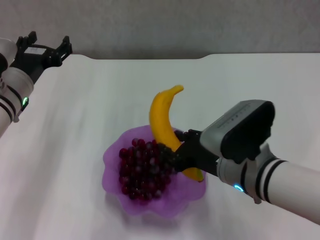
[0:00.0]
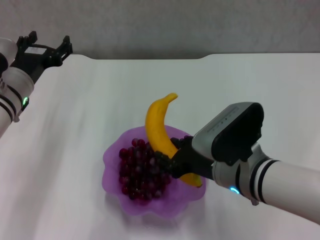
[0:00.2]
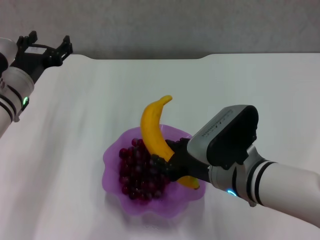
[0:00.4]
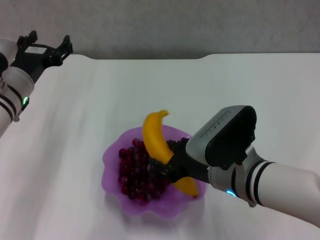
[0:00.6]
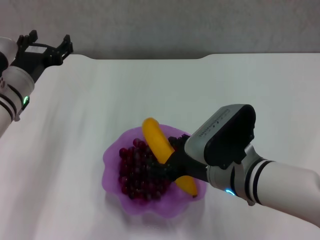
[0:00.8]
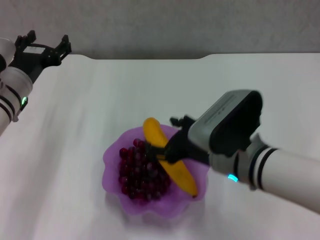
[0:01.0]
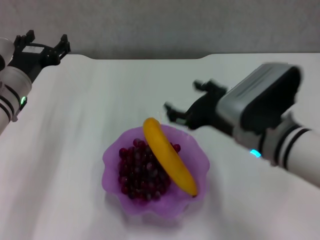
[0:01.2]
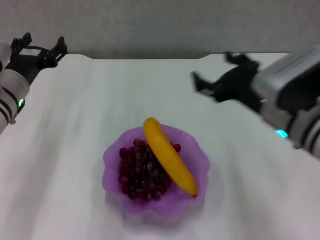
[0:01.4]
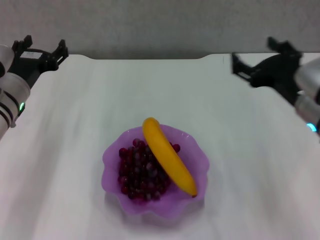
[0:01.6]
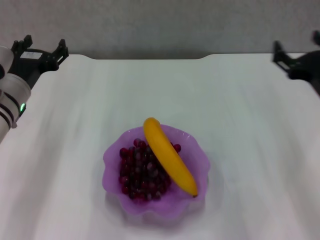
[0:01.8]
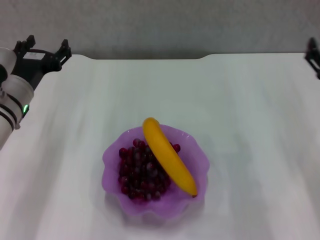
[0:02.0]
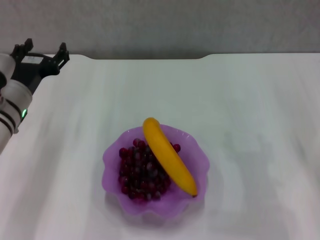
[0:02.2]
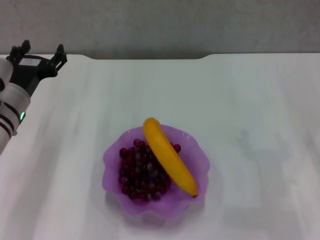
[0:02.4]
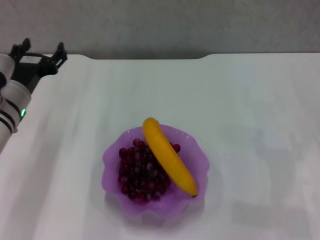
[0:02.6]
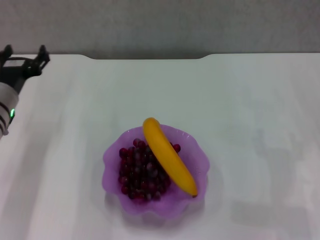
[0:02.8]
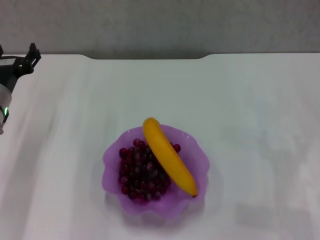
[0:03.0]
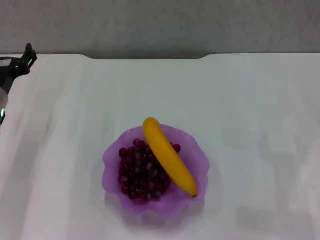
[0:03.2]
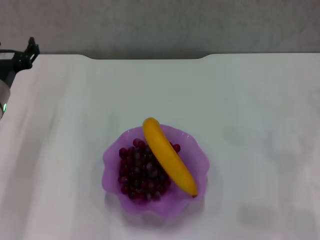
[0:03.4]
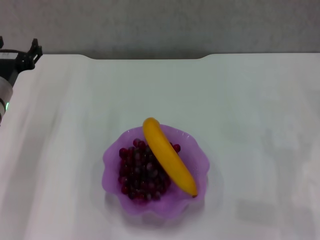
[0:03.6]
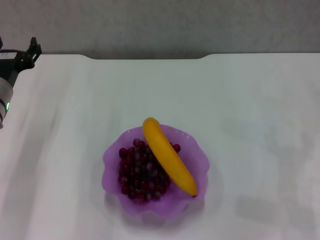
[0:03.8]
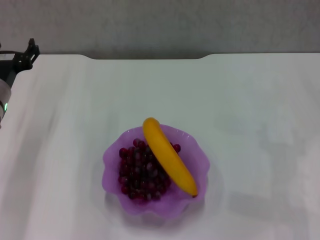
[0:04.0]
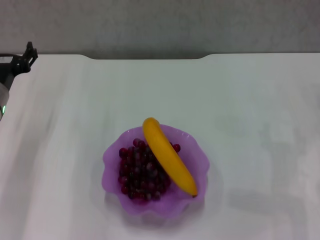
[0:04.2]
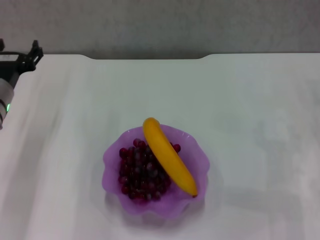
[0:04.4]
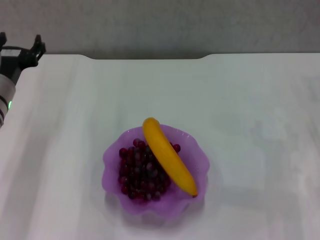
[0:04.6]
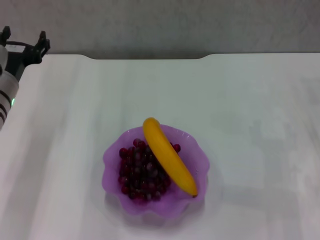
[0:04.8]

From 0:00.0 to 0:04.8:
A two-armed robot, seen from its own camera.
From 0:00.0 to 0:01.6: The right gripper goes about 10 cm to the right and upward, and opens up.
From 0:01.6 to 0:03.2: The right gripper goes roughly 15 cm to the right and downward.
From 0:03.2 to 0:04.8: There are only small adjustments of the grippers.
